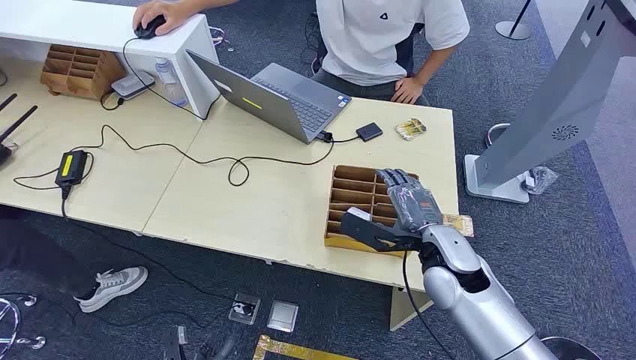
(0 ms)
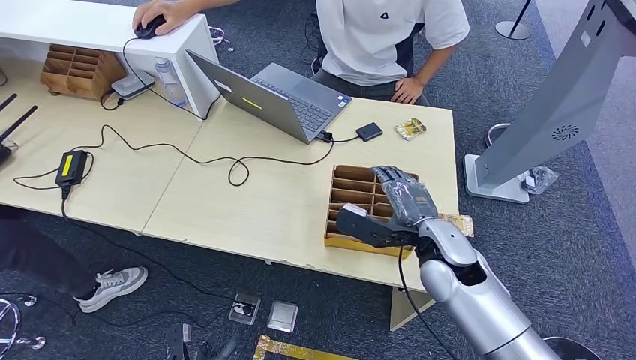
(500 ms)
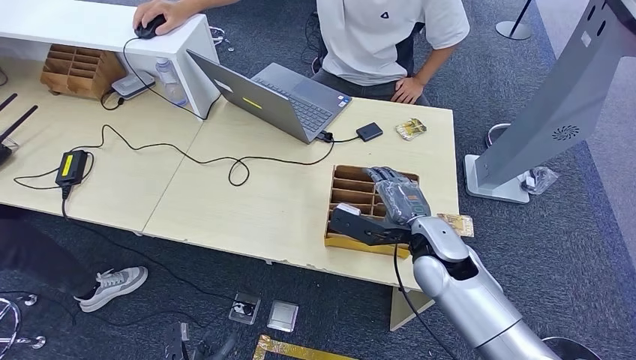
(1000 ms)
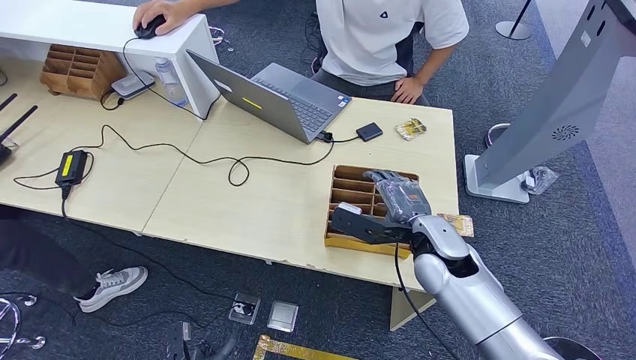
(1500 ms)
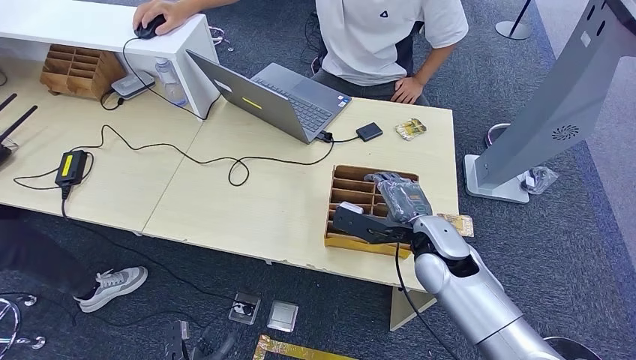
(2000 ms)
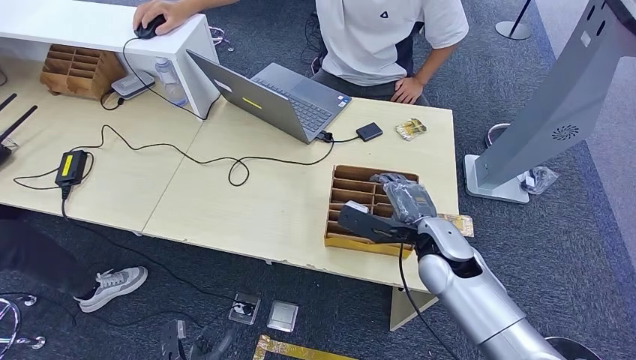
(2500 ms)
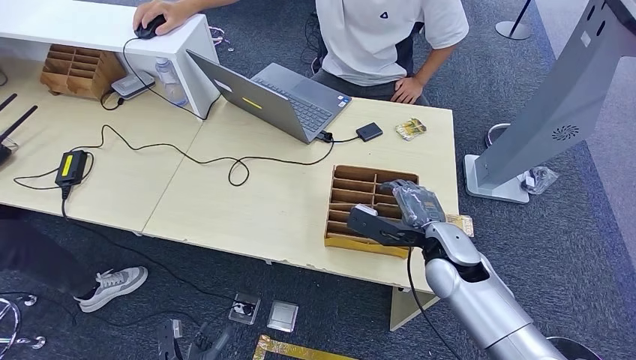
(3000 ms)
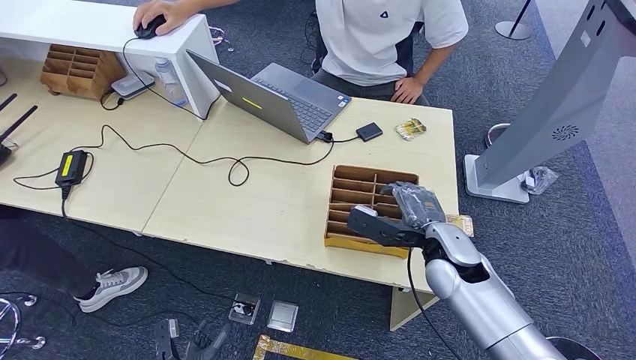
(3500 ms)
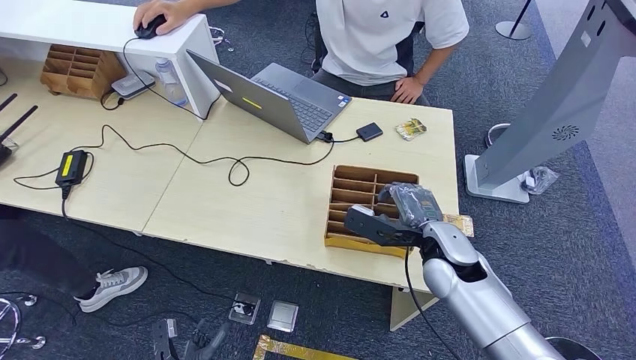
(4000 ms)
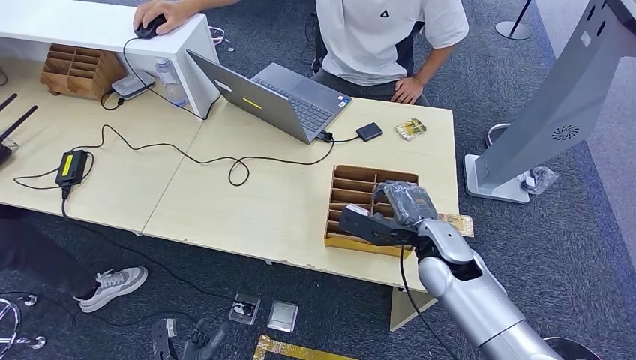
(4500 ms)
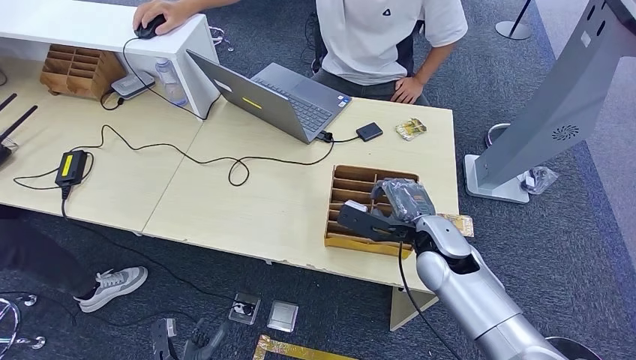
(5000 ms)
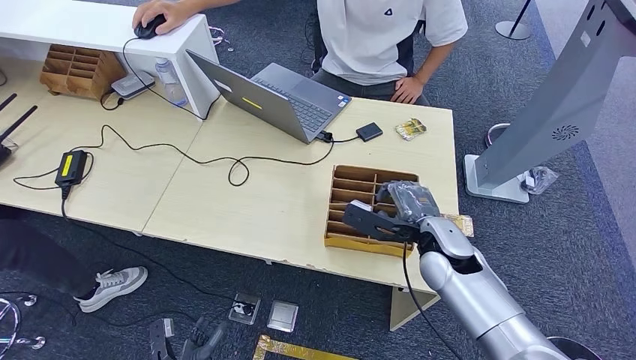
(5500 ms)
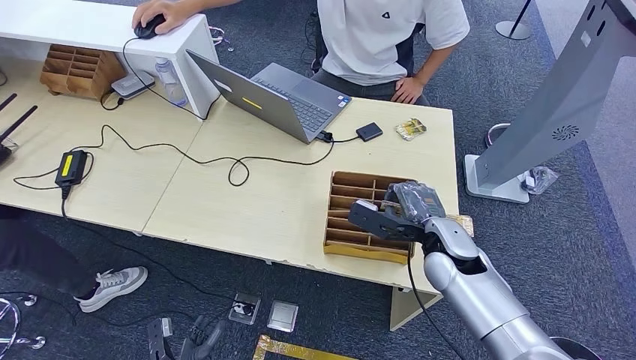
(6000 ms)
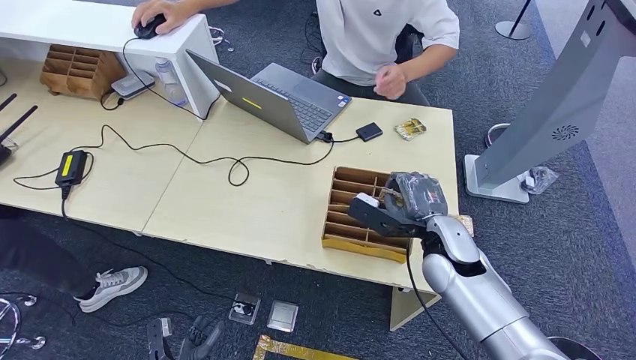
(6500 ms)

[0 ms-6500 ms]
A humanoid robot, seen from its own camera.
Step, 0 ms to 6000 ms: Pick up the key card from the card box.
2000 ms to 6500 ms: The hands stay close to where they were, moving slightly.
